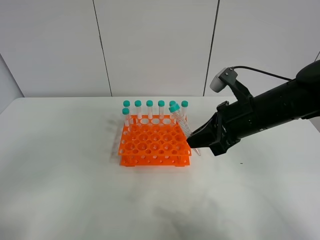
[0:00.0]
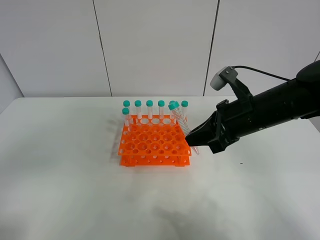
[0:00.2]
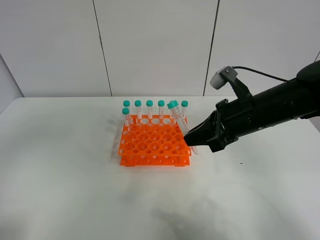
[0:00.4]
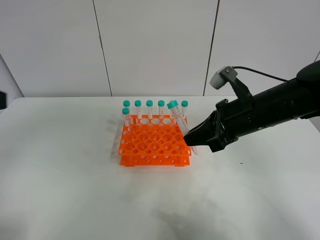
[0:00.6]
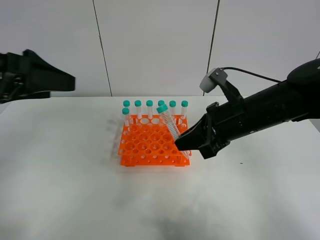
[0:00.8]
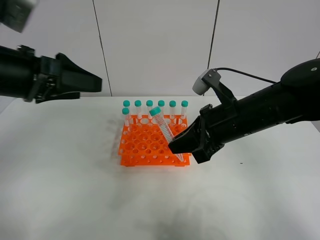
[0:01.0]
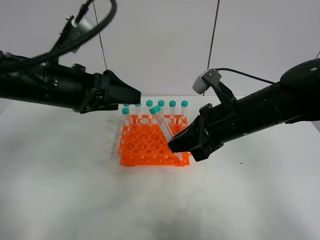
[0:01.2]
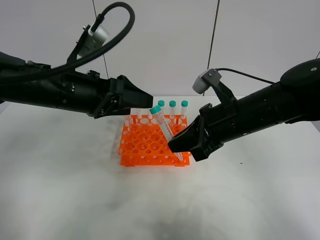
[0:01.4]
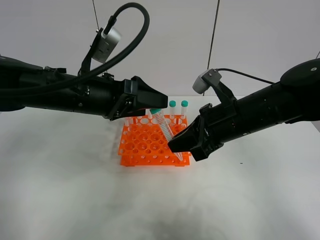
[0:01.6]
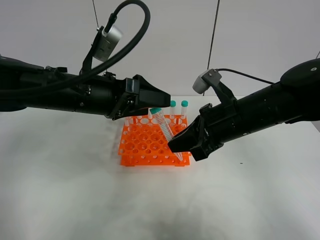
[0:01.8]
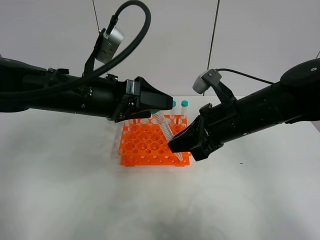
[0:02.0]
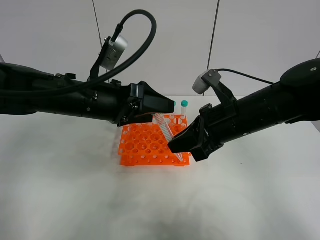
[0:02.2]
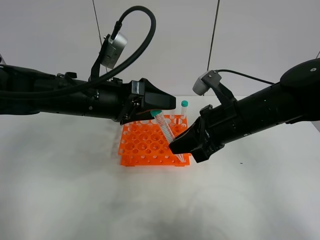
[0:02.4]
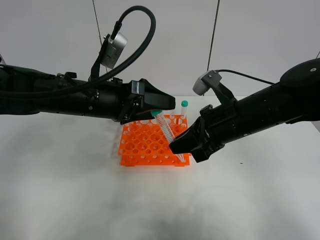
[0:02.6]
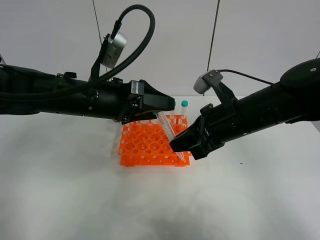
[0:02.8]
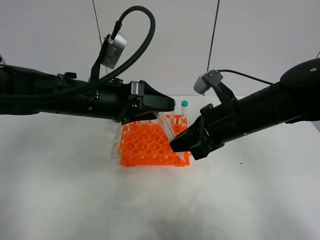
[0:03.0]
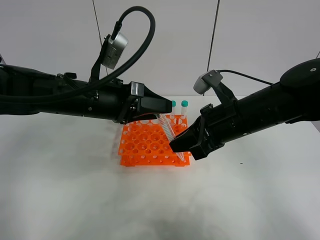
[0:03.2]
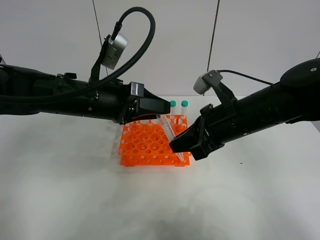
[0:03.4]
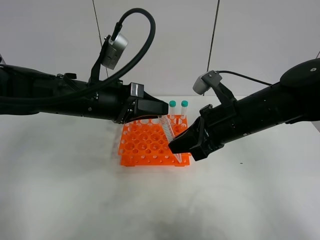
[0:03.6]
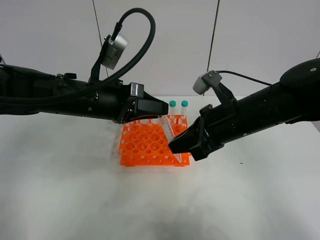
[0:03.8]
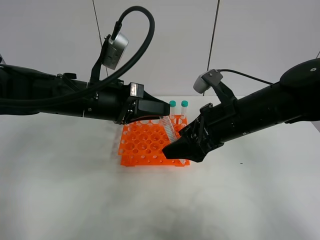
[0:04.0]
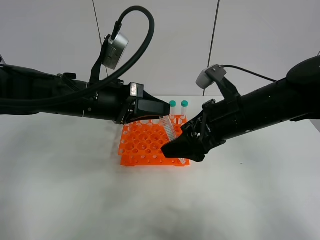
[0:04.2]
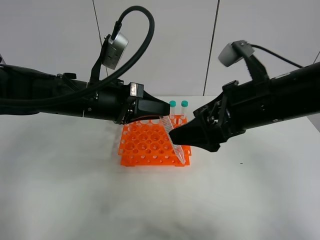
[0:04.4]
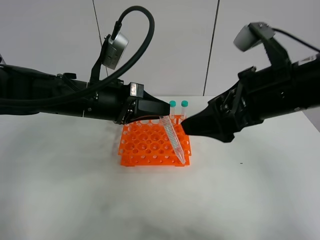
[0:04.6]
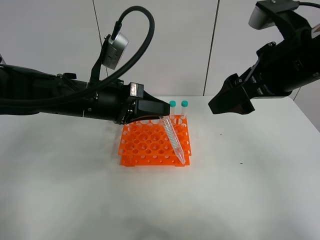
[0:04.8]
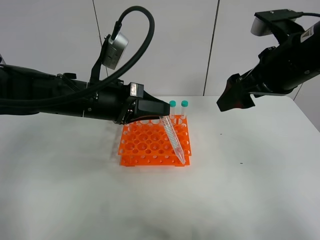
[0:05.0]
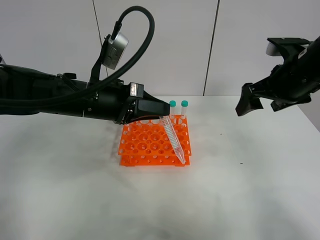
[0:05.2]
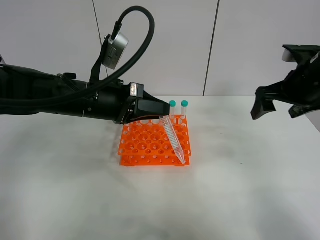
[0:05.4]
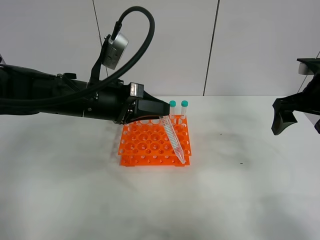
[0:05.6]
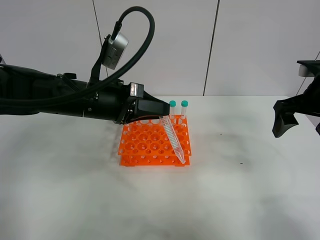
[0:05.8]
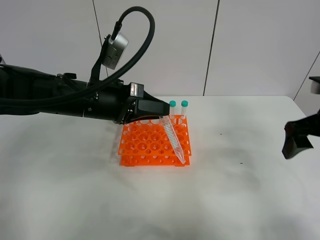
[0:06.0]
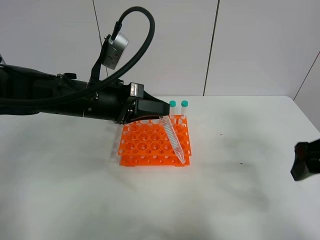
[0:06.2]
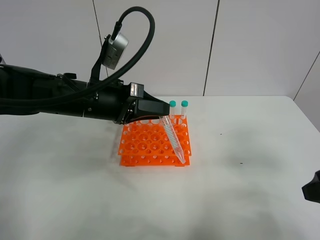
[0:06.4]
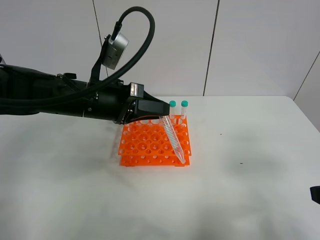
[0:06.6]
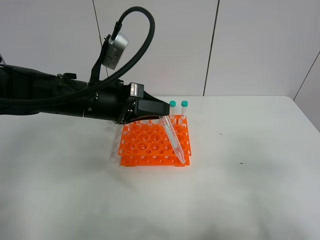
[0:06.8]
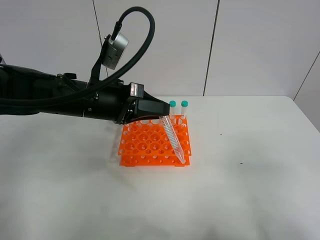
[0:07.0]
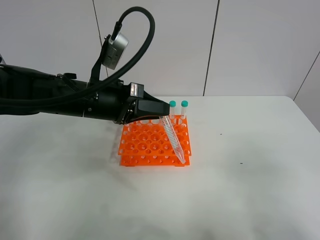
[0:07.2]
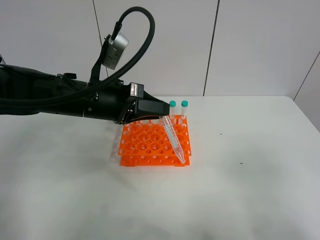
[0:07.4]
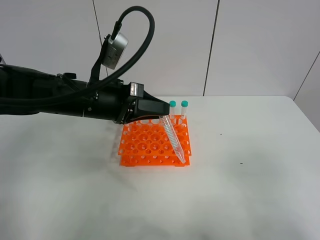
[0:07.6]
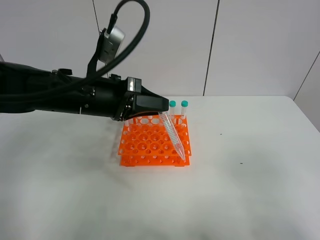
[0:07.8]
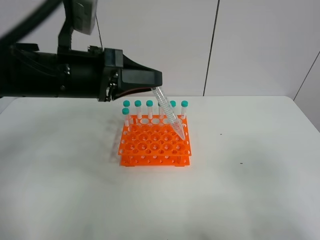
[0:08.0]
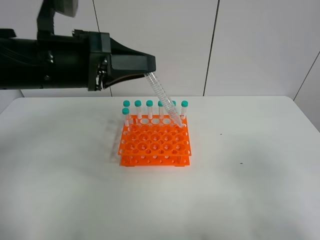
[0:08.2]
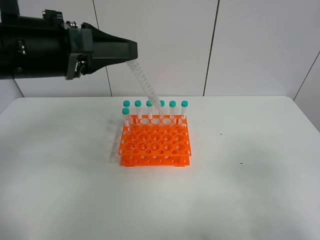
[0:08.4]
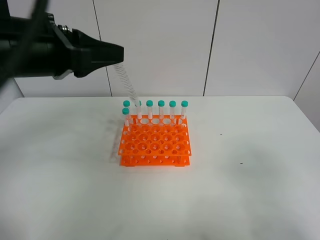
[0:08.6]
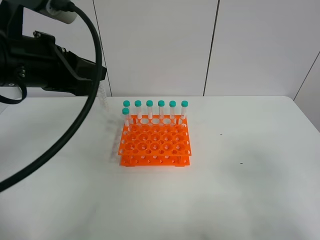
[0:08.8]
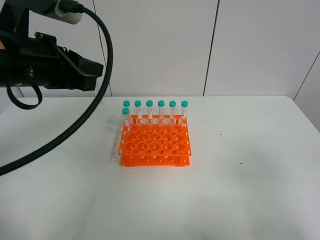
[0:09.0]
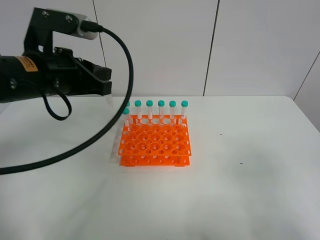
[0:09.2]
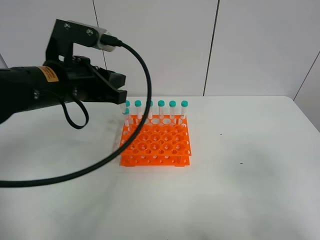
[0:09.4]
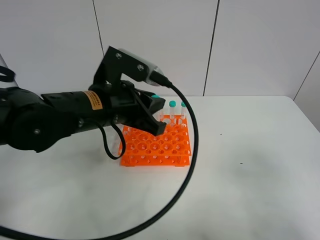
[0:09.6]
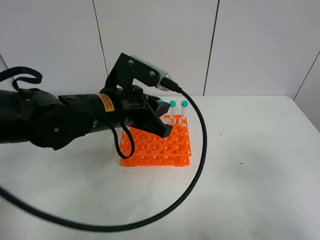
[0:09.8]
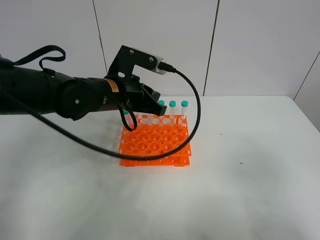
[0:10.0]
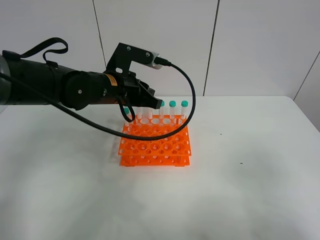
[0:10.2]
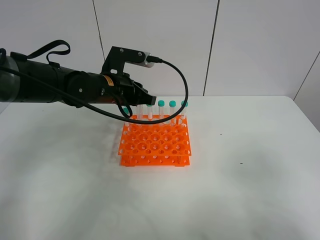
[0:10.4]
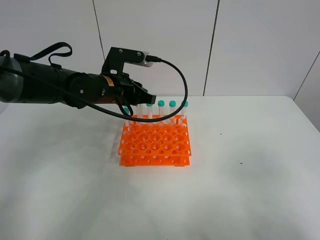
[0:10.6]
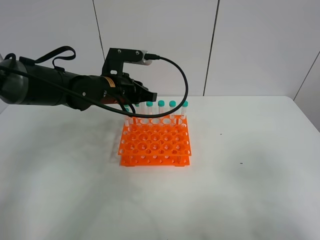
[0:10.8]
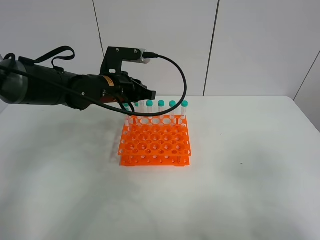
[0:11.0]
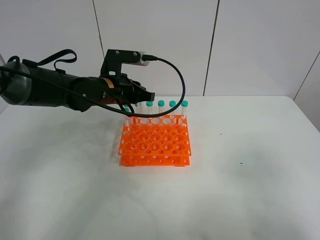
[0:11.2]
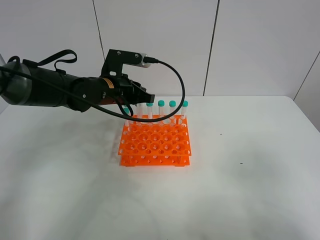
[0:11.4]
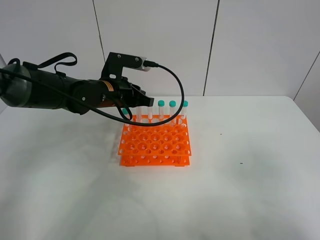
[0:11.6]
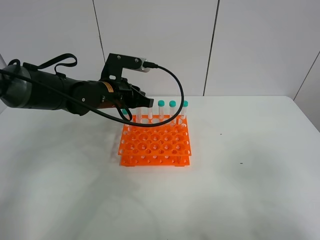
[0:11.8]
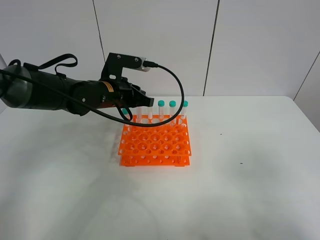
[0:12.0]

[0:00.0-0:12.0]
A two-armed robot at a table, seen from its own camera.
Task of the whole recording: Put the test tube on the table back onto the test tube rack.
Step, 0:00.0 to 0:05.0: Move the test tube from the right gripper to the left gripper.
0:00.0 to 0:01.6: The left gripper travels forward and to the right by roughly 30 cm.
0:01.6 to 0:03.0: The grippers stay close to where they were, moving slightly.
0:03.0 to 0:04.4: The left gripper closes its fingers. Meanwhile the right gripper is displaced upward by approximately 5 cm, and opens up.
0:04.4 to 0:06.0: The right gripper travels to the right by some 15 cm.
0:06.0 to 0:07.6: The right gripper shifts some 20 cm backward.
0:07.6 to 0:09.0: The left gripper shifts roughly 10 cm upward and to the left.
0:09.0 to 0:10.4: The left gripper moves forward, downward and to the right, approximately 20 cm.
0:10.4 to 0:12.0: There are only small adjustments of the grippers.

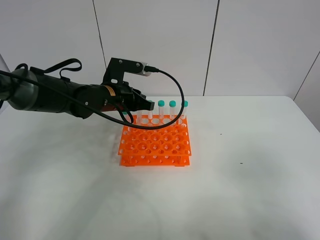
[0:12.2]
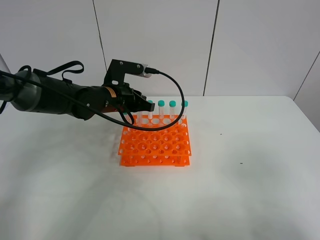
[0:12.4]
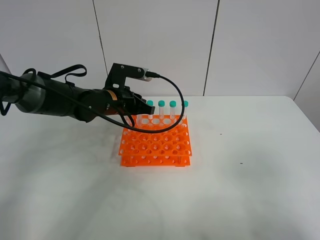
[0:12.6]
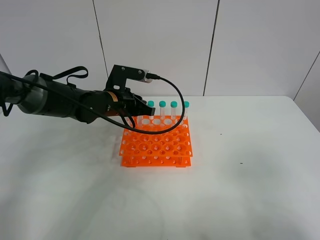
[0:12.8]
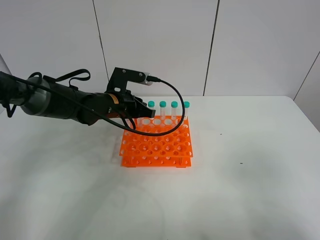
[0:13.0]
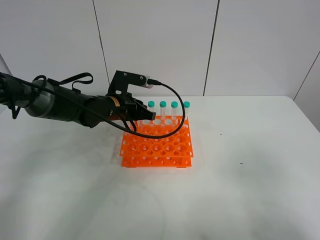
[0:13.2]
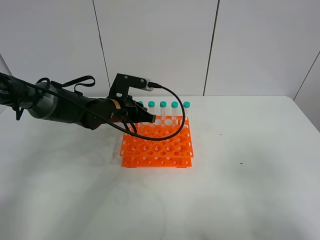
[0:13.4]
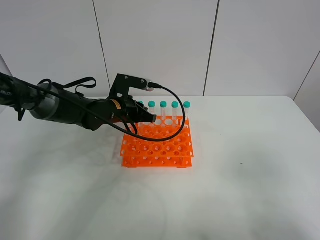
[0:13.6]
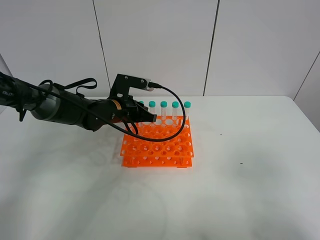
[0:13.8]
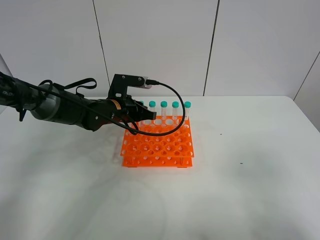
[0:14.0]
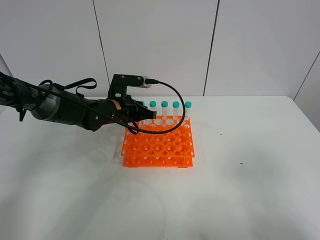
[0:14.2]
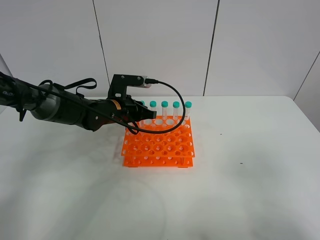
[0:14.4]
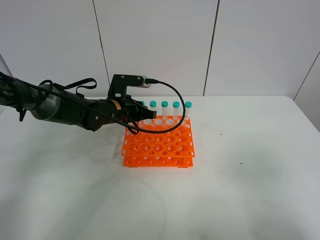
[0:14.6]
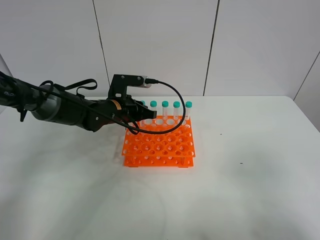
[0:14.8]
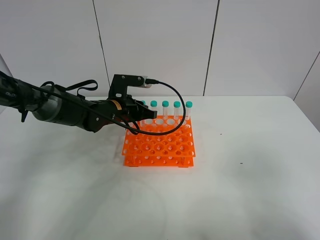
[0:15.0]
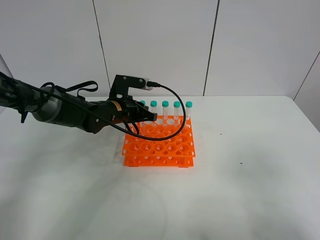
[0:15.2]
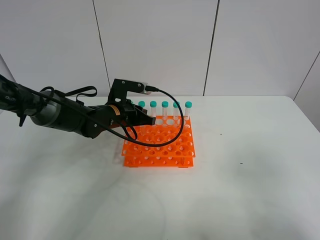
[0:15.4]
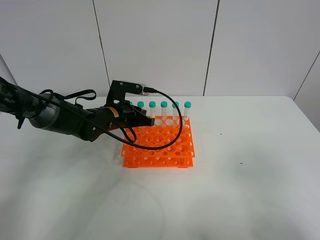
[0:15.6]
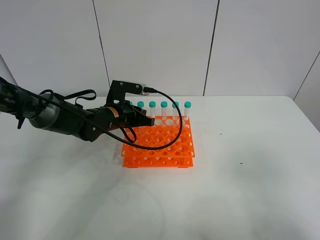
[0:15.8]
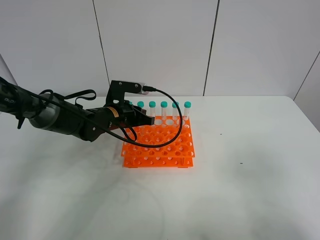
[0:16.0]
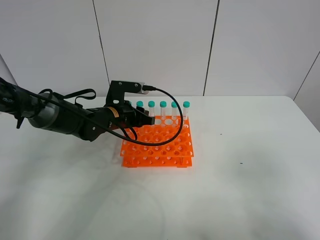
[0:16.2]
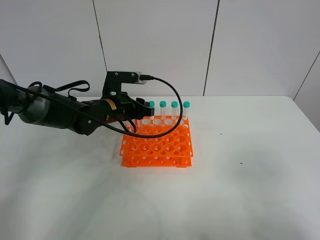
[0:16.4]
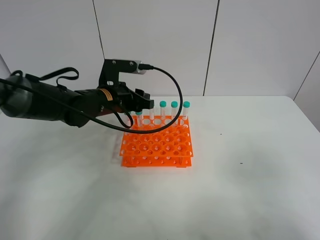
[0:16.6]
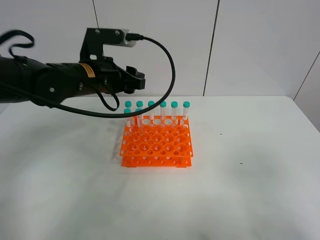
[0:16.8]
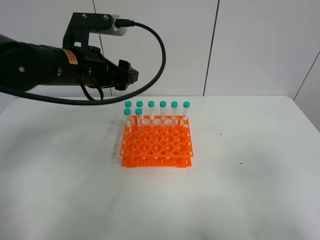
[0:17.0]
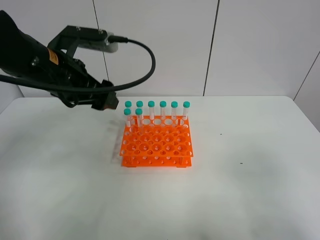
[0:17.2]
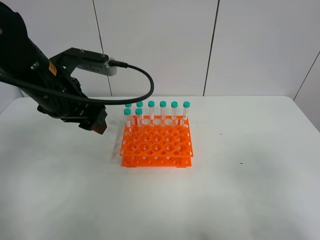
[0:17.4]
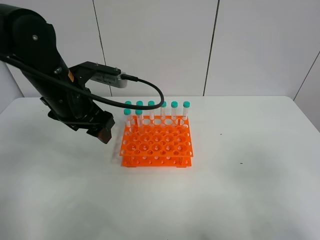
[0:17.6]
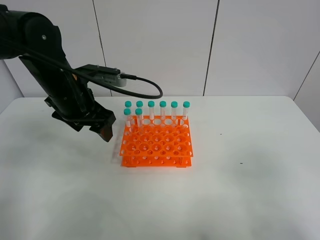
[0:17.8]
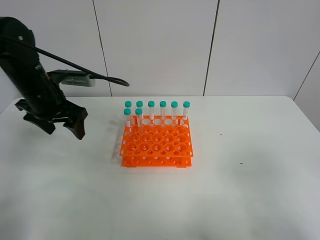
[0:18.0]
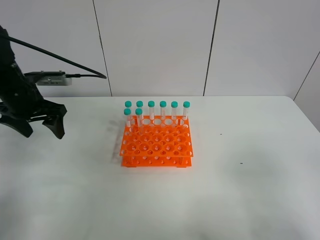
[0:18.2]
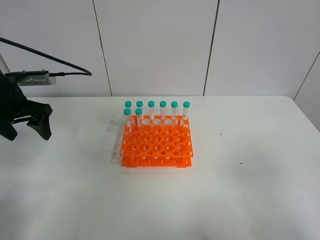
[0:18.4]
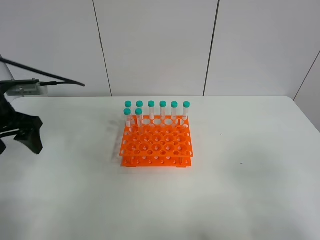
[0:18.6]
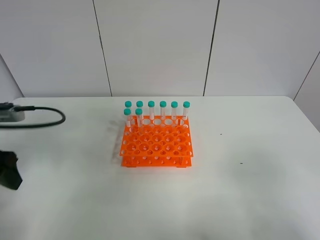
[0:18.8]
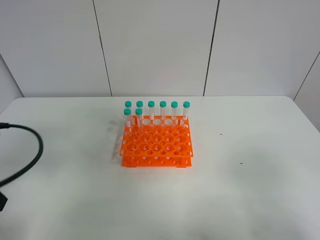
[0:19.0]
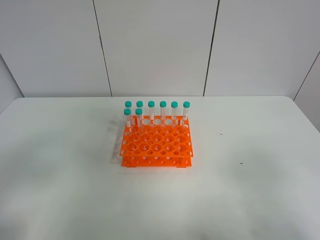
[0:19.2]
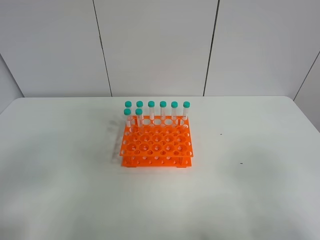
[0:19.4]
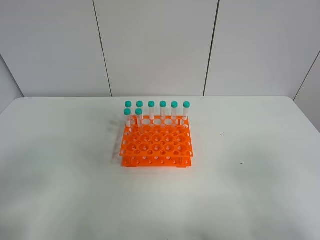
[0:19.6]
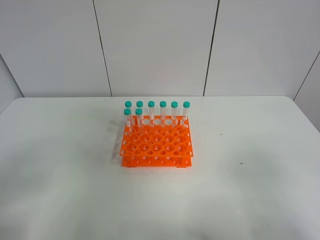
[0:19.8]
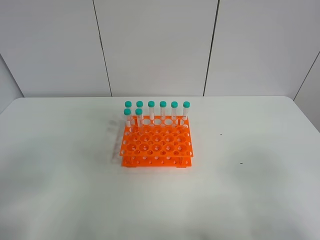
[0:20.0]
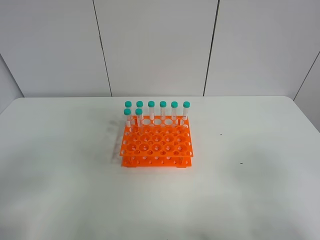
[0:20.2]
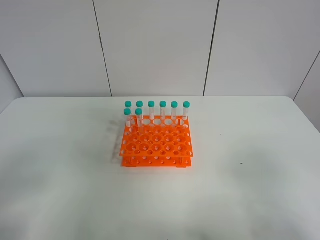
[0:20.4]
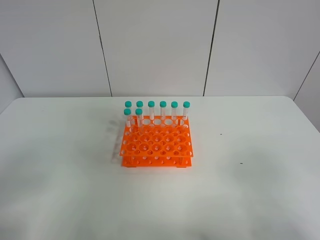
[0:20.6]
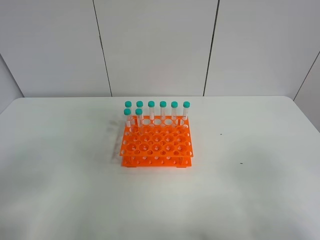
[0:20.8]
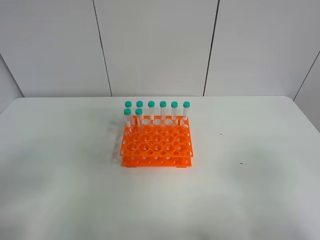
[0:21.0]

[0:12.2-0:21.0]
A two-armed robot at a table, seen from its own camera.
Task of the whole recording: Put the test tube on the table back onto the test tube rack.
Step, 0:12.2 to 0:17.0: Place the test tube on the test tube rack with the left gripper.
0:12.2 to 0:15.2: The grippers stay close to where they were, moving slightly.
0:15.2 to 0:16.6: The left gripper travels upward by approximately 5 cm, and opens up.
0:16.6 to 0:18.0: The left gripper moves to the left, about 15 cm, and opens its fingers.
0:18.0 to 0:19.6: The left gripper shifts roughly 35 cm backward.
0:19.6 to 0:21.0: Both grippers stay put.
